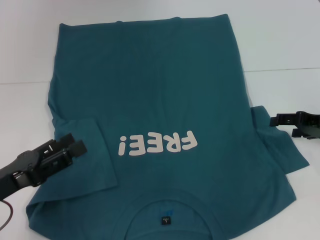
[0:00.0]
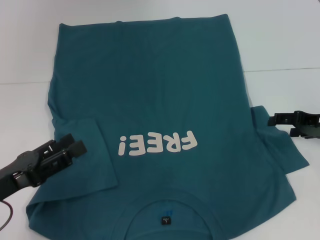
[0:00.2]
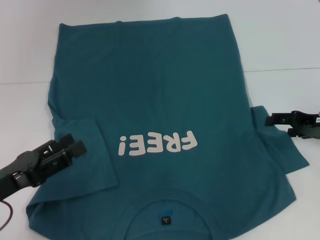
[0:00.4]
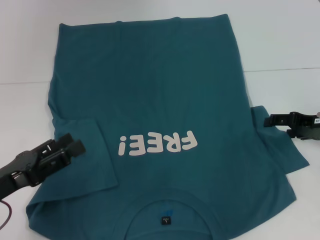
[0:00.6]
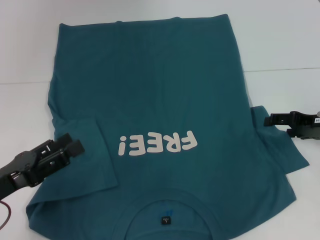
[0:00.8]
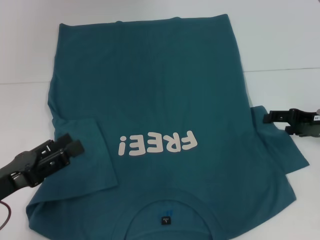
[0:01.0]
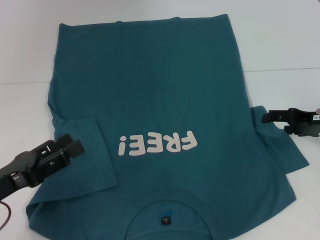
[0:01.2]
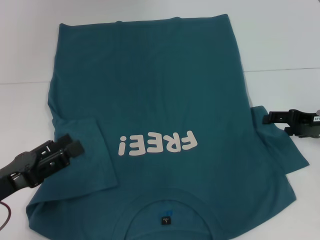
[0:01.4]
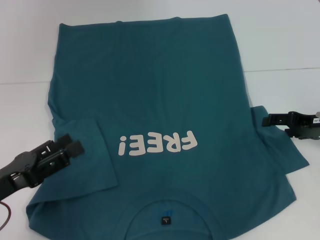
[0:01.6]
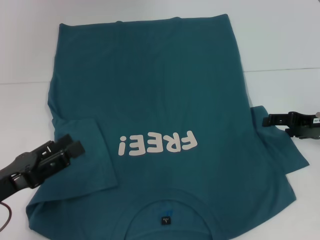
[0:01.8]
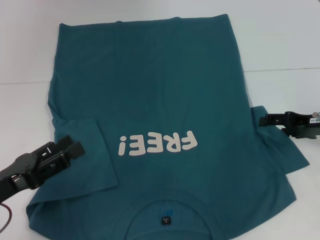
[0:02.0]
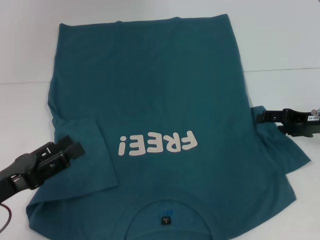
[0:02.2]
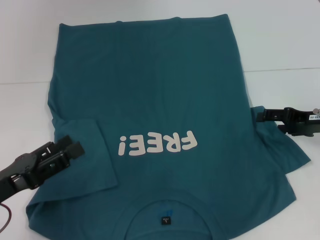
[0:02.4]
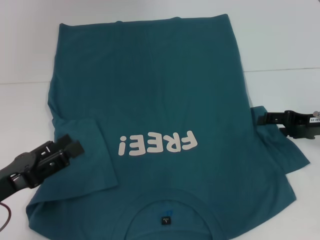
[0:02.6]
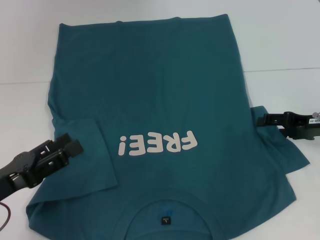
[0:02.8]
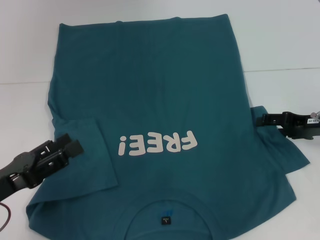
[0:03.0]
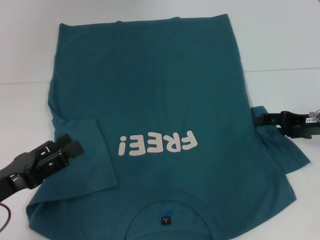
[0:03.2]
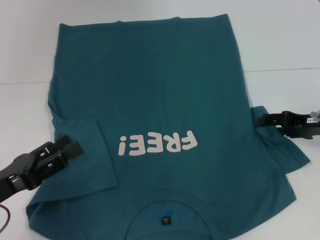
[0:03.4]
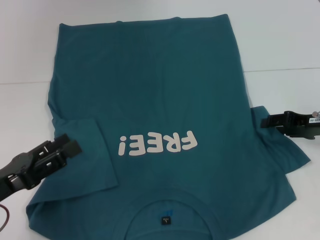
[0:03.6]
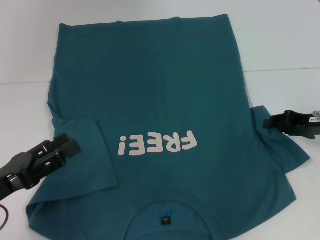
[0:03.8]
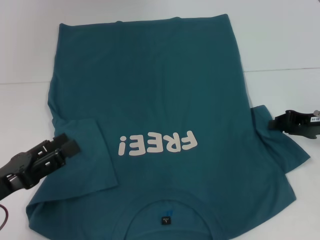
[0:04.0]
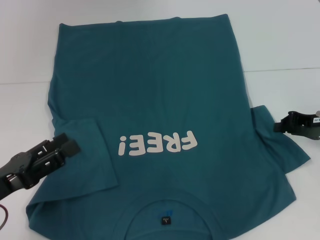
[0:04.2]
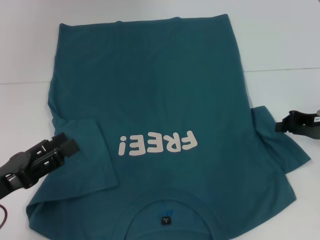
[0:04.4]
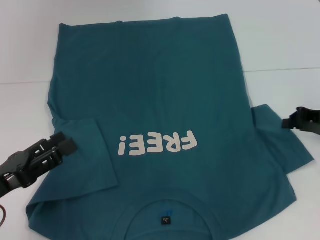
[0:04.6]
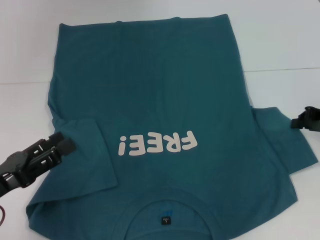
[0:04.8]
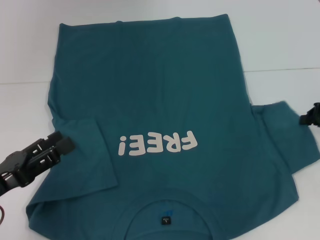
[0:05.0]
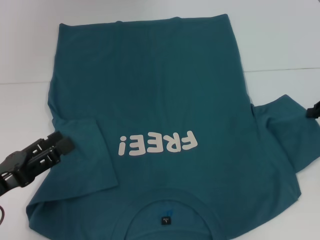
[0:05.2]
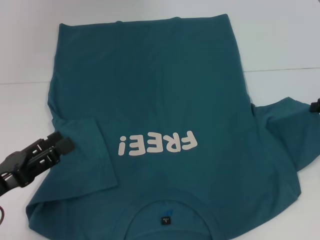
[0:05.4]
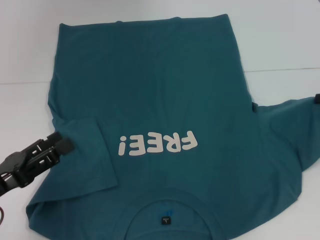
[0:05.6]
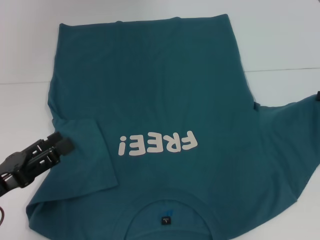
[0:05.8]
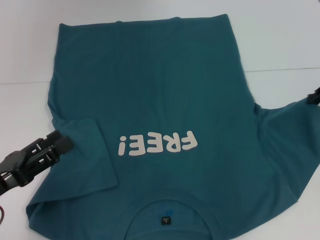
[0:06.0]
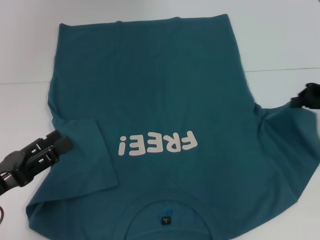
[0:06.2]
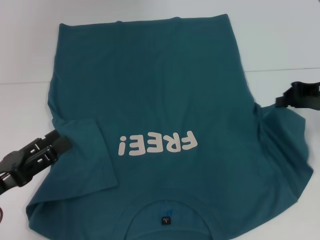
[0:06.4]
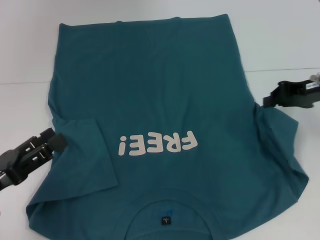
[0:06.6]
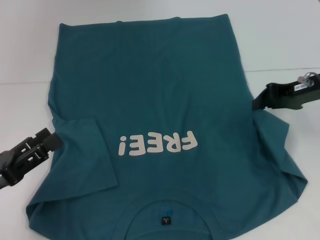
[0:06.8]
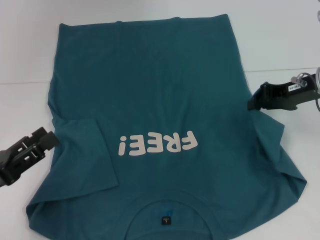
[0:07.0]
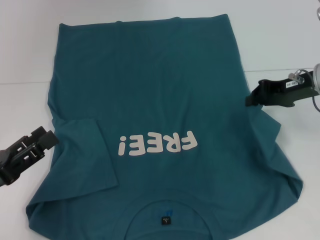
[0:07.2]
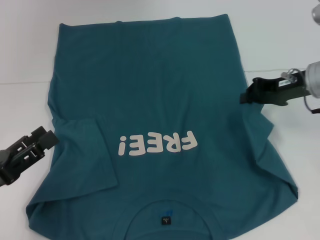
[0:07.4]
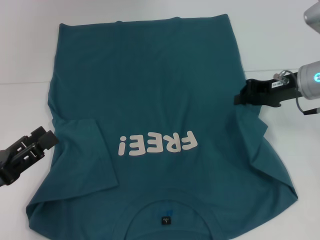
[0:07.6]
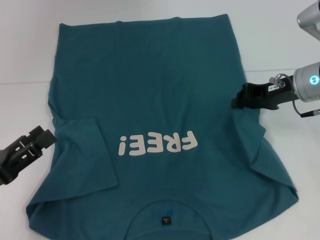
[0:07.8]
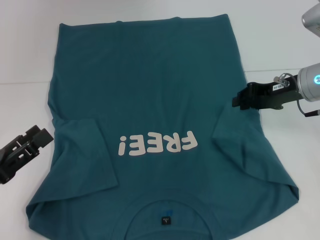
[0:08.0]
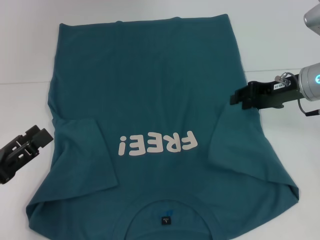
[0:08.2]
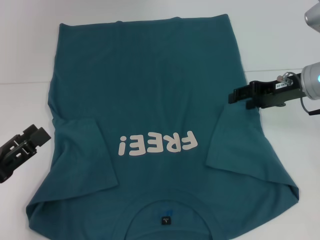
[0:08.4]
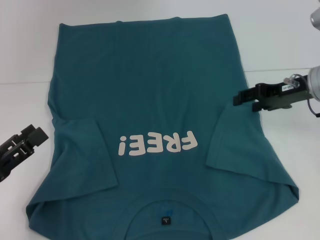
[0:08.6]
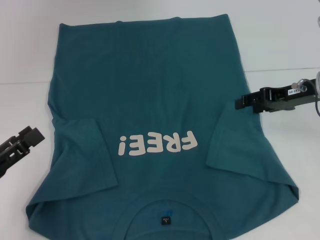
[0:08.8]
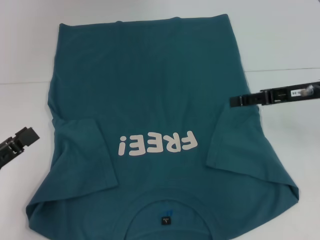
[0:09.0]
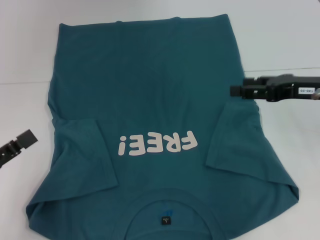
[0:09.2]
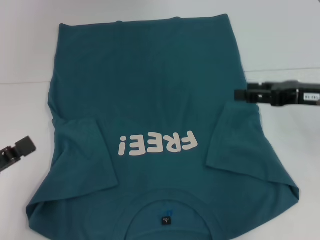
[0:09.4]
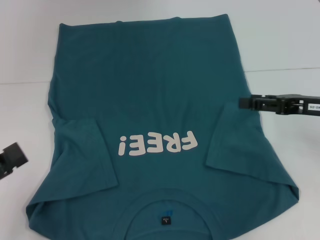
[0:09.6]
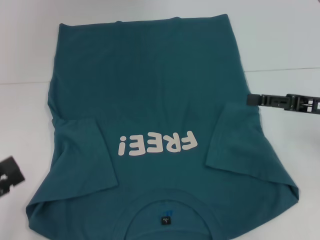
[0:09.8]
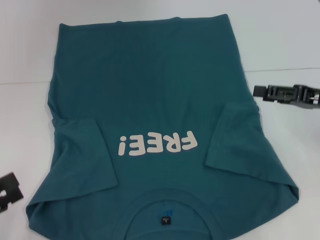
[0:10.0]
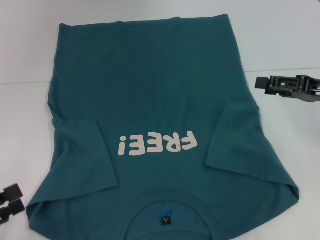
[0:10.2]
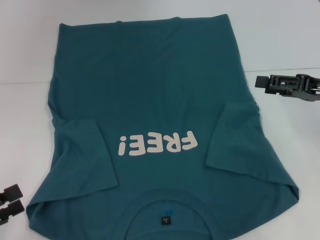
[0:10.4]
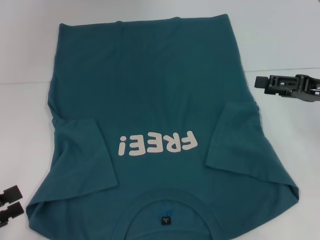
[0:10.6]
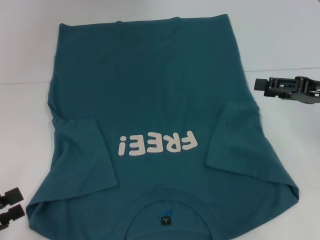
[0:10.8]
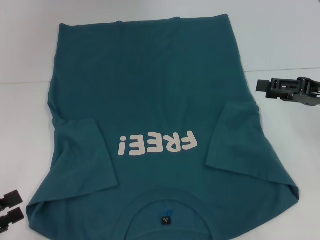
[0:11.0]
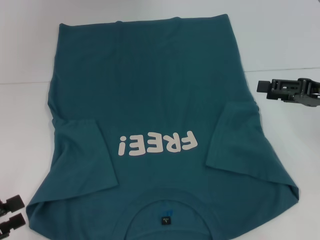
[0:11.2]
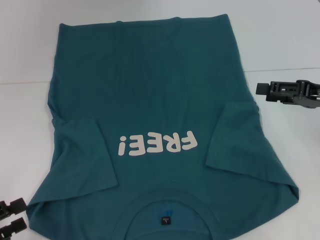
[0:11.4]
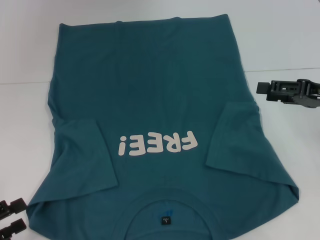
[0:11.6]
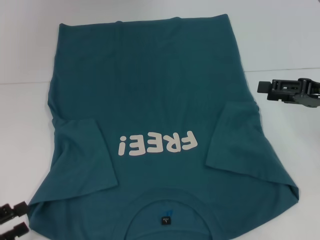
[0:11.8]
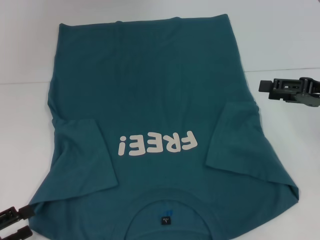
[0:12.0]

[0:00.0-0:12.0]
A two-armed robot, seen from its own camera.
Step, 0:00.0 to 0:08.2: Fold the bottom right sleeve to the right.
0:00.0 to 0:01.6: The two grippers keep their place.
0:01.6 to 0:03.0: The two grippers keep their place.
0:03.0 to 0:04.4: The right gripper closes.
0:04.4 to 0:06.0: The right gripper travels upward by about 5 cm.
0:06.0 to 0:07.6: The right gripper travels to the left by approximately 10 cm.
0:07.6 to 0:09.0: The right gripper opens.
0:09.0 to 0:10.4: The left gripper ends up some 5 cm from where it was. The right gripper changes place by some 5 cm.
0:10.4 to 0:12.0: The grippers move only a little.

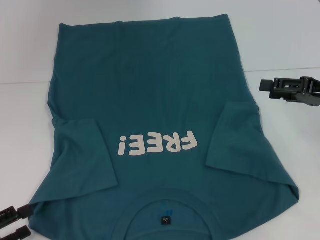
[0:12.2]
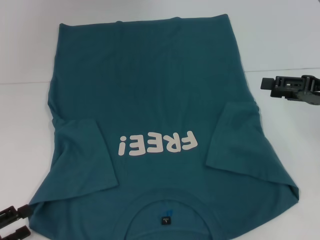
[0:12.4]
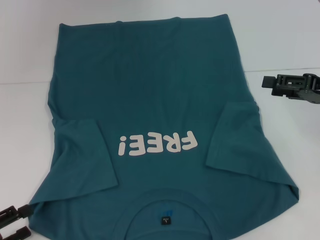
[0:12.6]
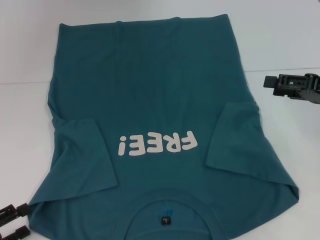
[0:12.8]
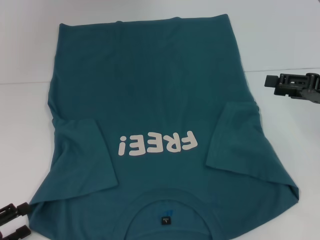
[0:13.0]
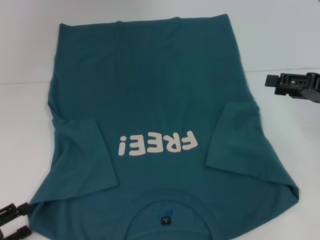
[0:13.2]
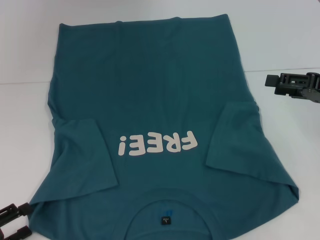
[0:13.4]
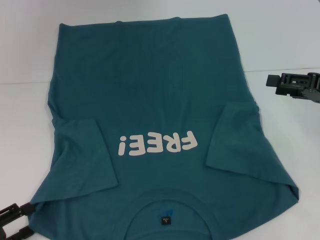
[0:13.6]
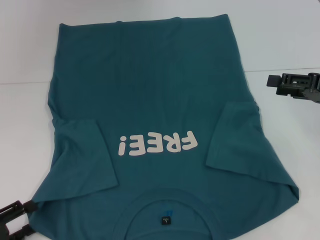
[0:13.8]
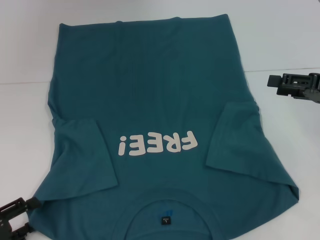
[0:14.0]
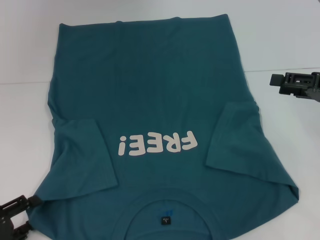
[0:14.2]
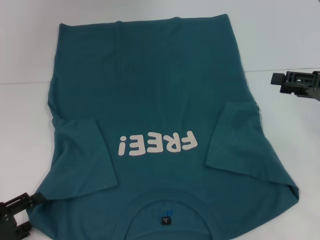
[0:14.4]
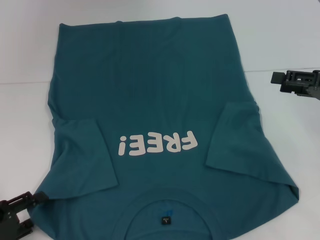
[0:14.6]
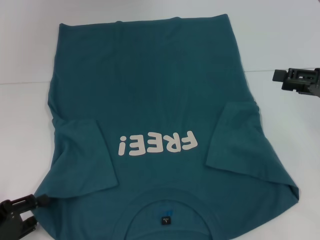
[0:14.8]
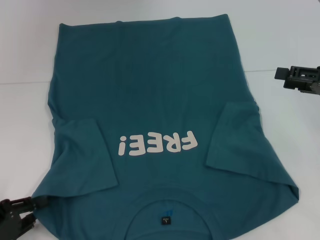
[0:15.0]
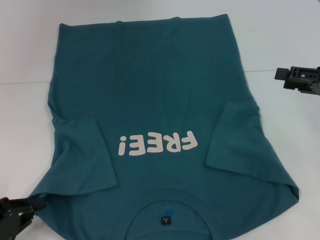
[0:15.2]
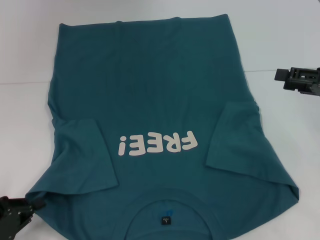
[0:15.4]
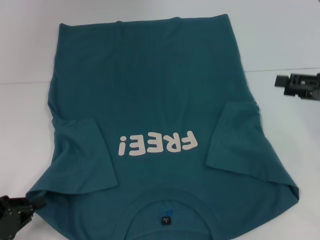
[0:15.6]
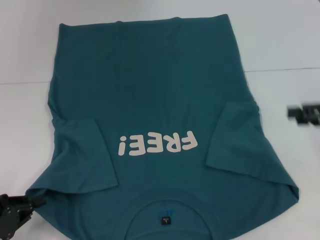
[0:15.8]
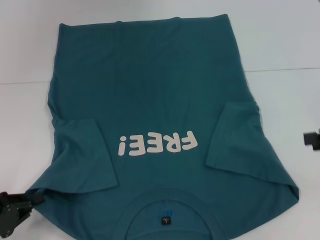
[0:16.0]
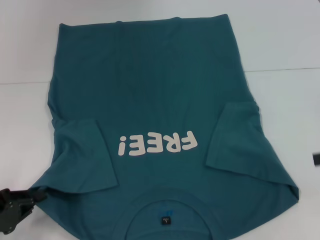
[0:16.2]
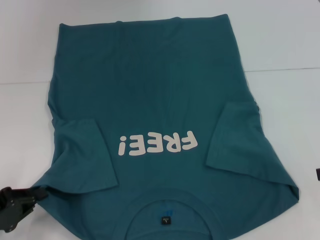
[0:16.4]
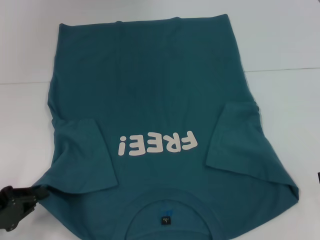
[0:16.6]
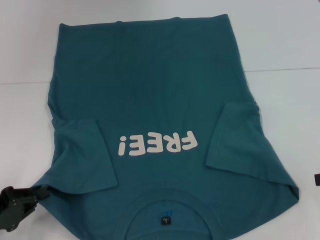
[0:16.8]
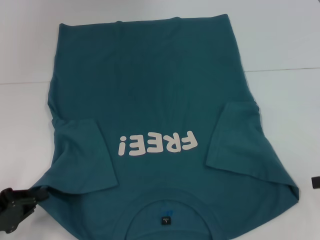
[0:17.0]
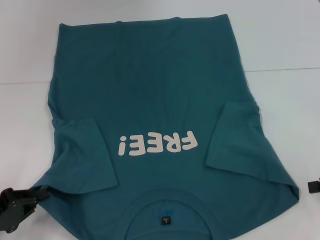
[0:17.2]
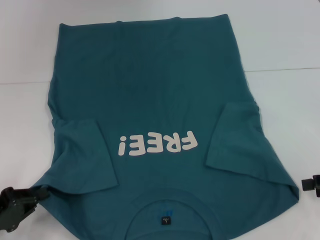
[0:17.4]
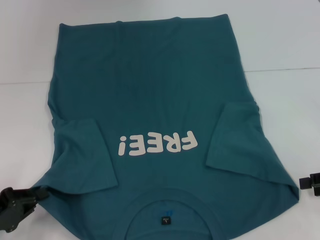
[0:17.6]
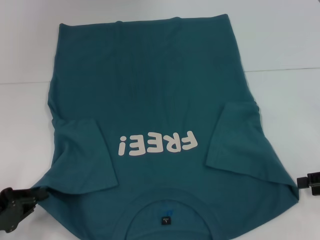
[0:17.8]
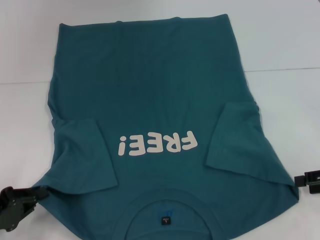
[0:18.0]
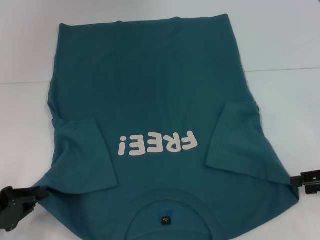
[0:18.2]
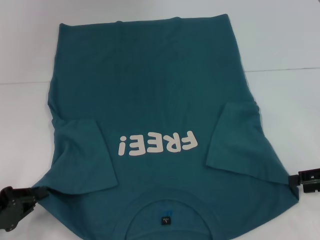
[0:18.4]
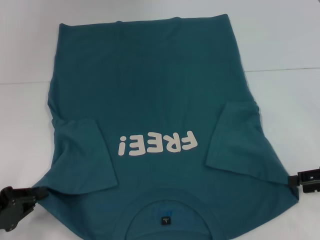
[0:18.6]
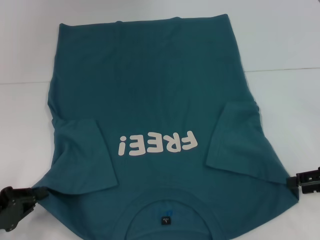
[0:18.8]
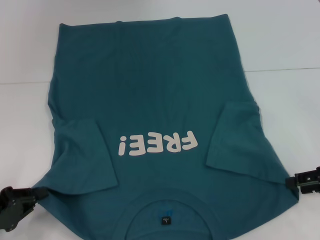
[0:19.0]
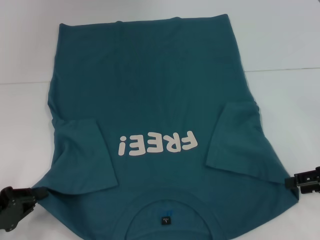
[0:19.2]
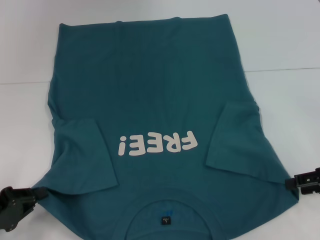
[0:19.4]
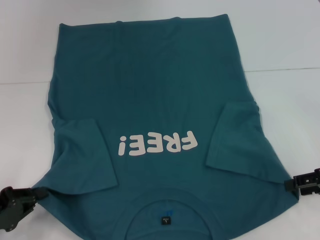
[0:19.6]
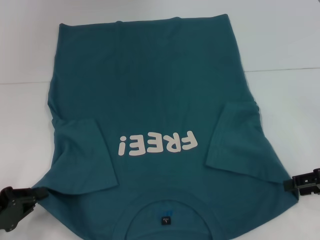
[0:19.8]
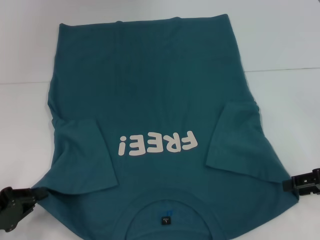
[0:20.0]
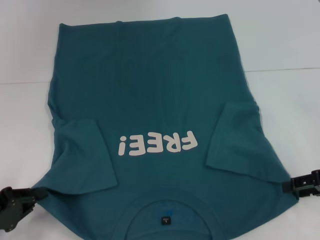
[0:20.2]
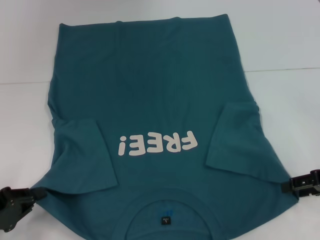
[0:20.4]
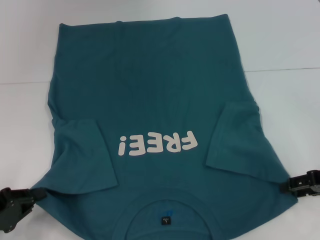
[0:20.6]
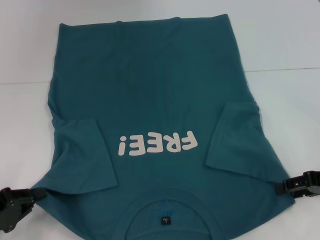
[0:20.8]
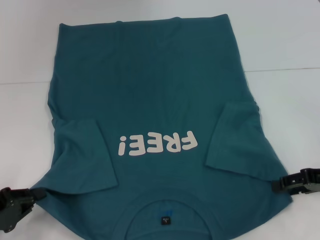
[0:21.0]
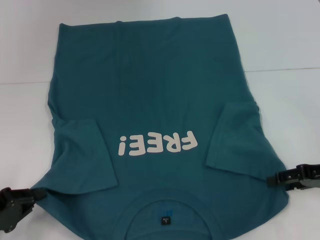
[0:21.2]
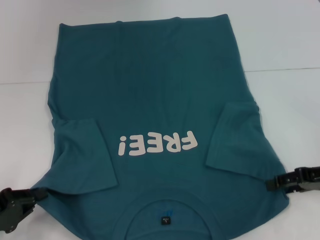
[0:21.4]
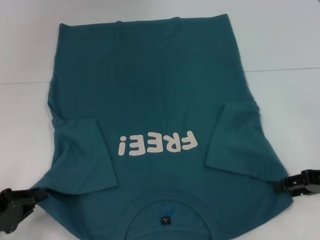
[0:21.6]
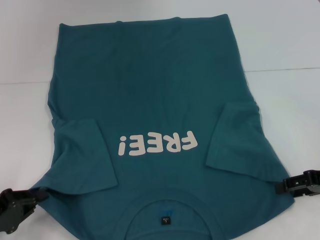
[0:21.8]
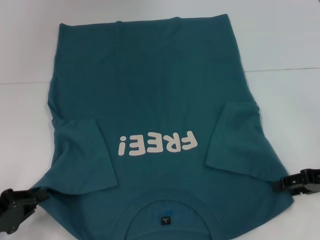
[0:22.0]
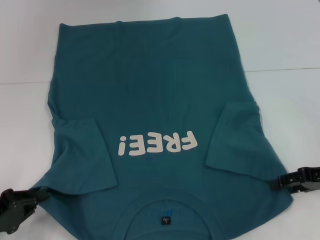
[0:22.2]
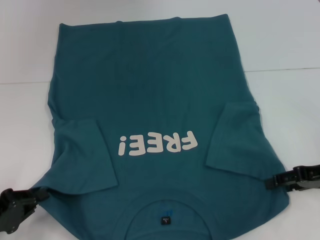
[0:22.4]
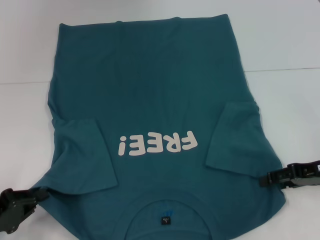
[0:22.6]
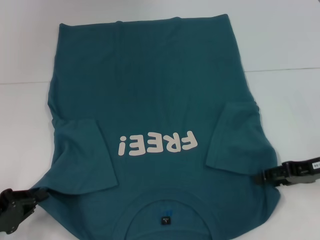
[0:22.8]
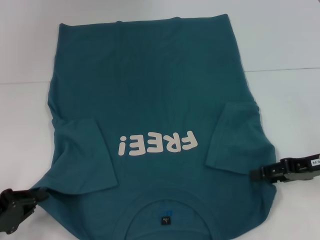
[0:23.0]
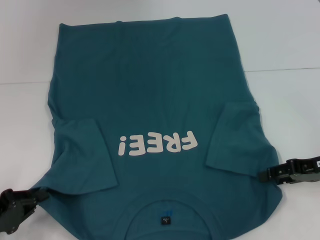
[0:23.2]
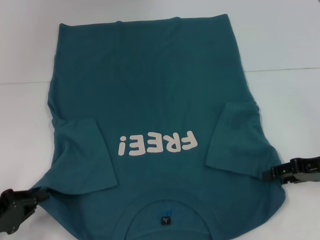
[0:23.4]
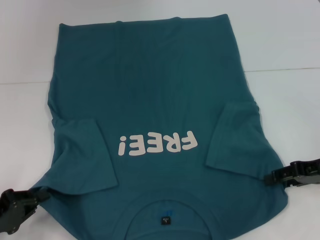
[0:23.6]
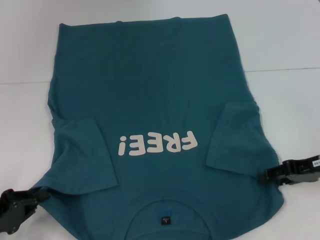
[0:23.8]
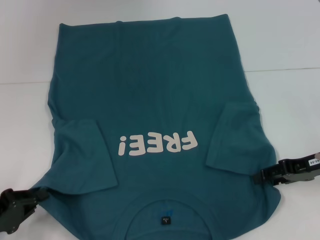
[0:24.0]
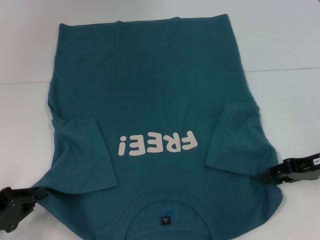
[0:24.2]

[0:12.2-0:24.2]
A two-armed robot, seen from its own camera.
Step, 0:12.2 to 0:15.4: Grab the bottom left corner with your left hand.
0:12.2 to 0:13.8: The grippers make only small movements.
0:13.8 to 0:15.2: The left gripper closes its fingers.
0:15.2 to 0:16.6: The right gripper travels backward and to the right by approximately 10 cm.
0:16.6 to 0:18.2: The right gripper ends up roughly 5 cm from where it was.
0:19.8 to 0:24.2: The grippers move only a little.
